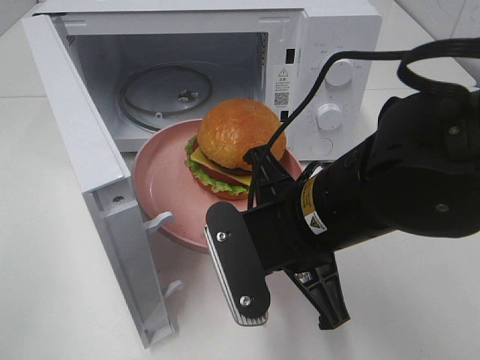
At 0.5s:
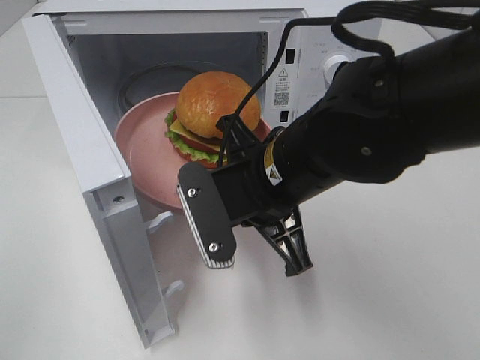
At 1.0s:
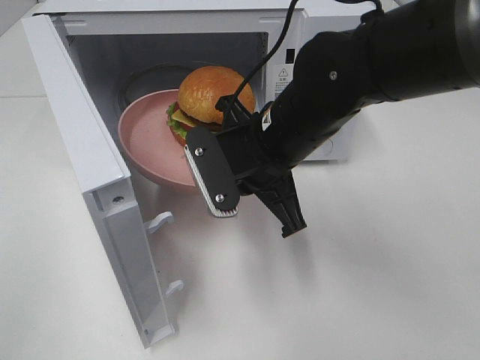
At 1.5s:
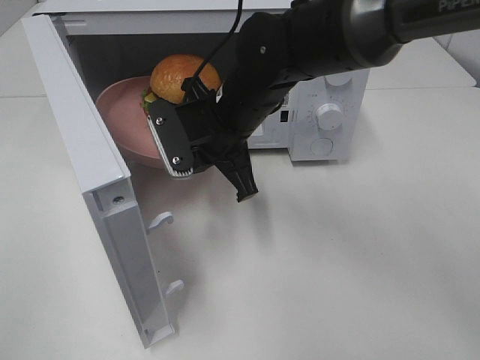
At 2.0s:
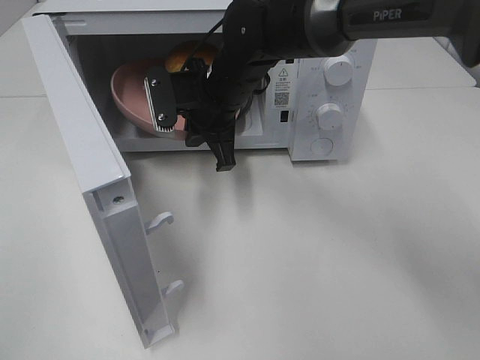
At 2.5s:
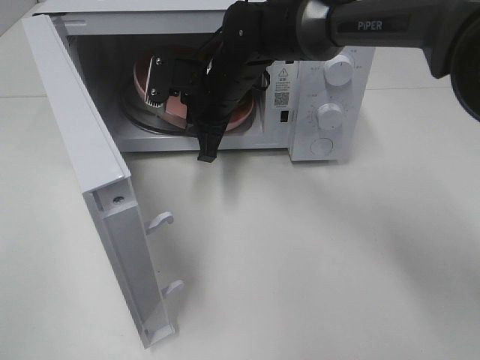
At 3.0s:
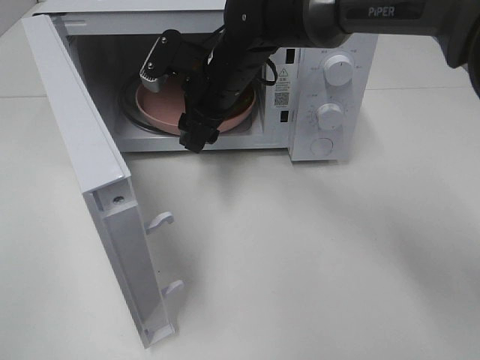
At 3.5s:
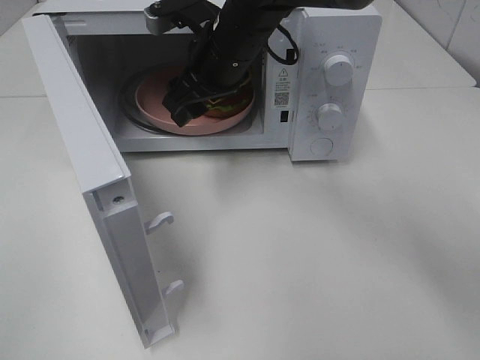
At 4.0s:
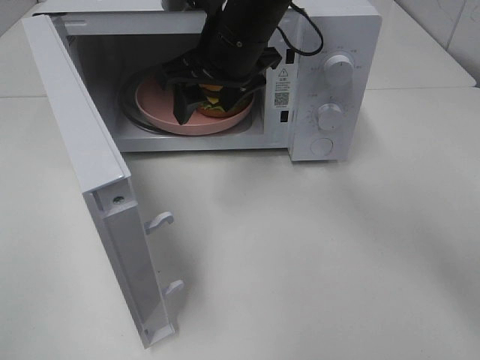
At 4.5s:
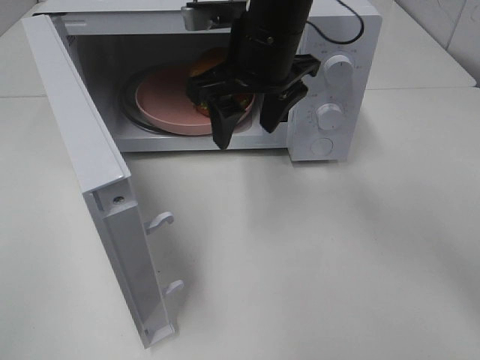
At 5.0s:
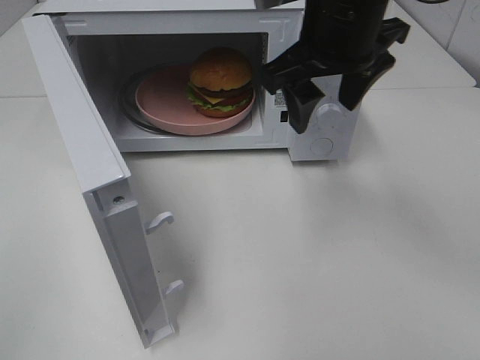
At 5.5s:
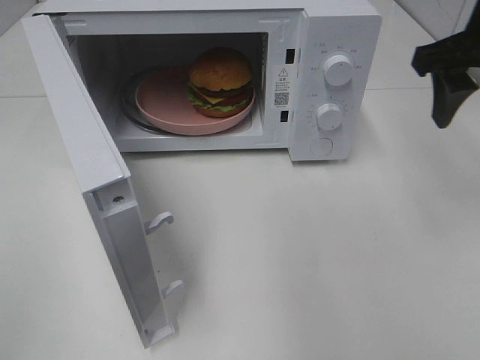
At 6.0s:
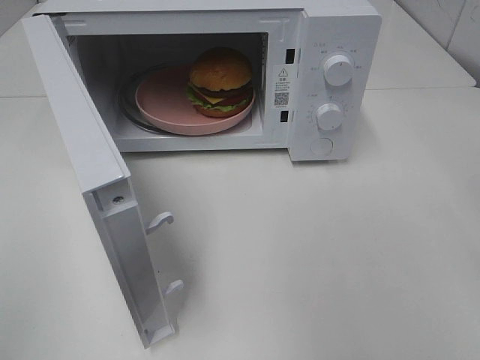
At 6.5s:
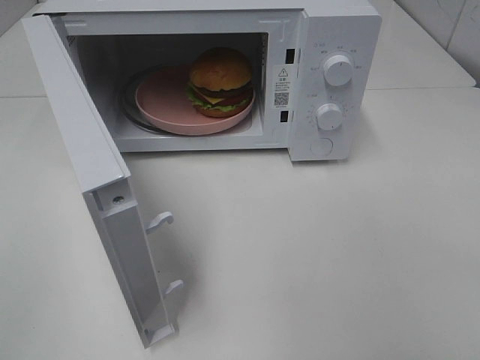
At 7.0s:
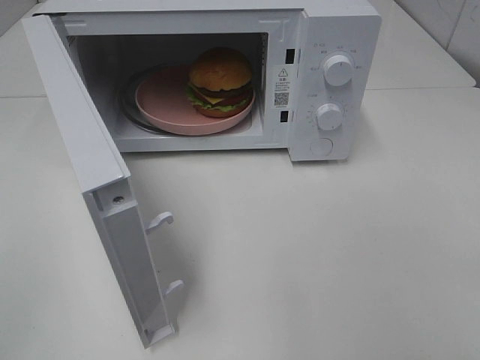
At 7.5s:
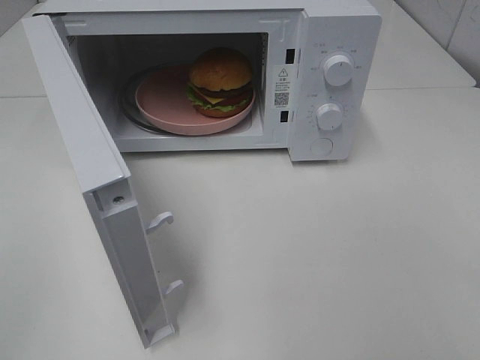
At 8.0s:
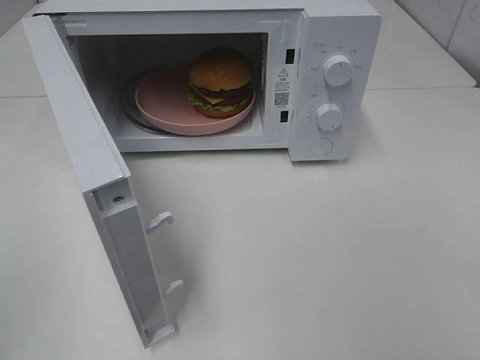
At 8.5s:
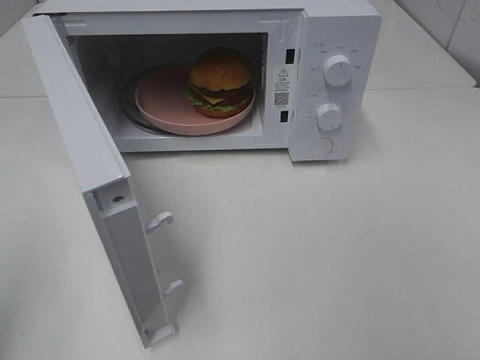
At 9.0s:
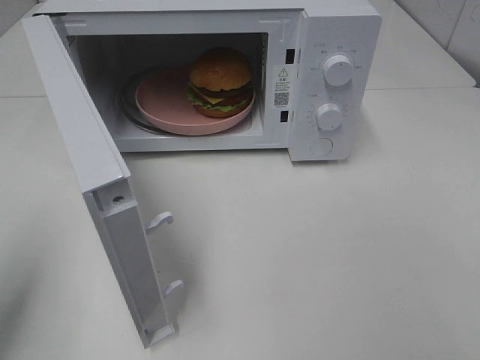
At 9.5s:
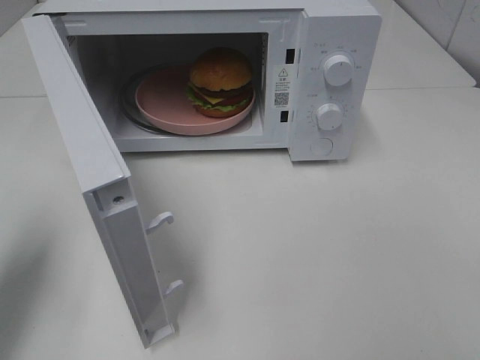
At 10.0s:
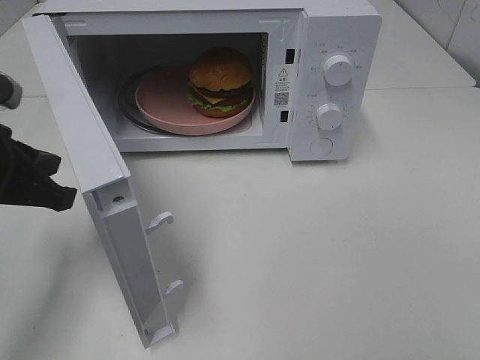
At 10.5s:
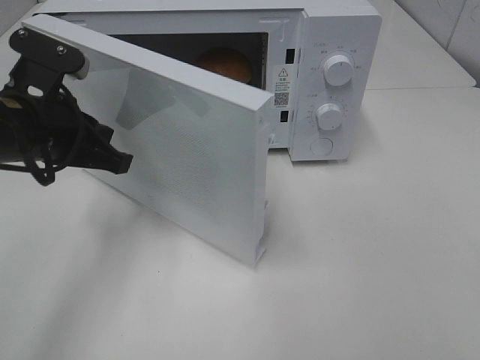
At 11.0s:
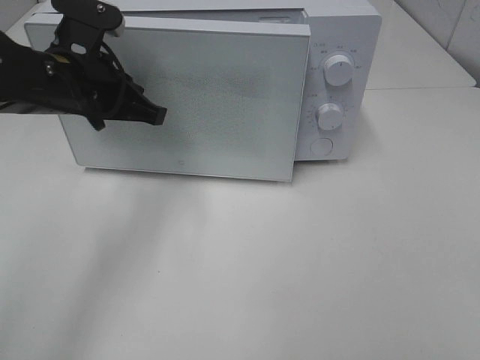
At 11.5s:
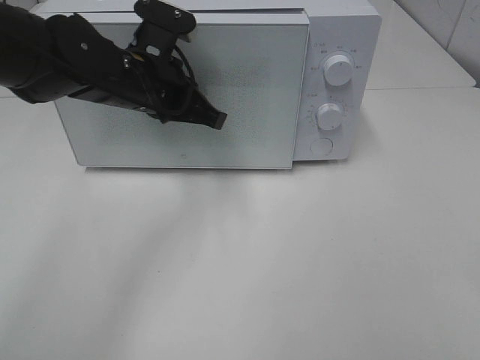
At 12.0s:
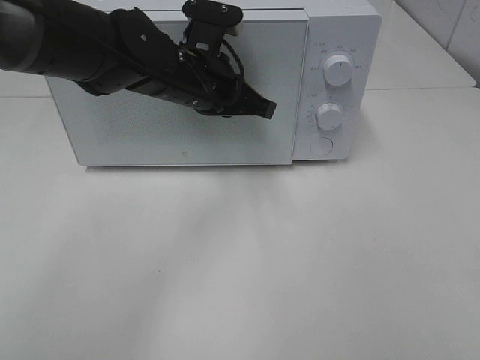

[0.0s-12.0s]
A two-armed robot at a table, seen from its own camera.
Task of the whole recording: Heat the burger.
Step, 0.0s to 2.5s: Right hand: place the plate in the microwave.
0.0s to 2.0s: The right gripper heads forward, covering roughly 20 cm.
2.0s to 4.0s: The right gripper goes some 10 cm upward, and opens.
4.0s to 6.0s: The right gripper shifts approximately 30 cm to the right and backward.
8.0s to 10.0s: The left gripper travels forward and downward by approximately 25 cm.
10.0s to 12.0s: The left gripper shifts approximately 25 cm to the right and forward.

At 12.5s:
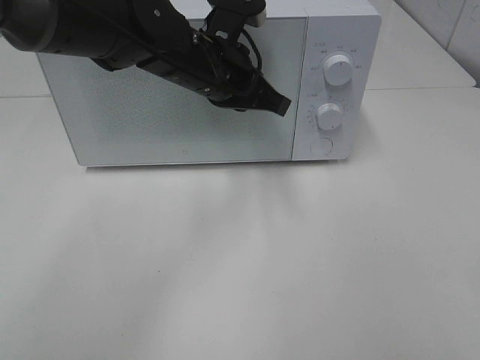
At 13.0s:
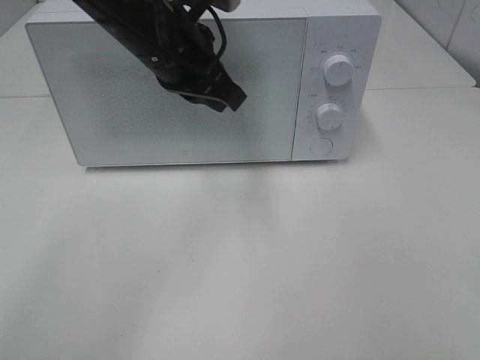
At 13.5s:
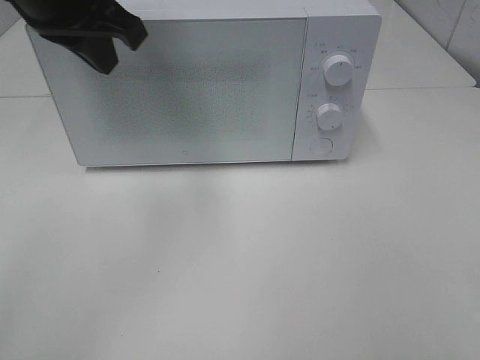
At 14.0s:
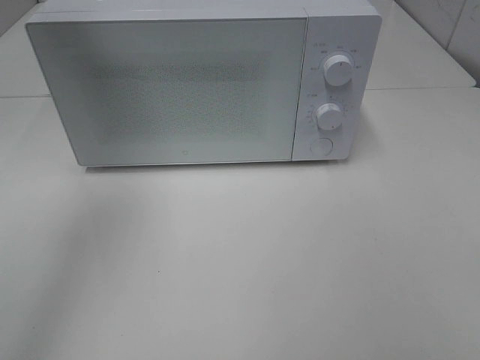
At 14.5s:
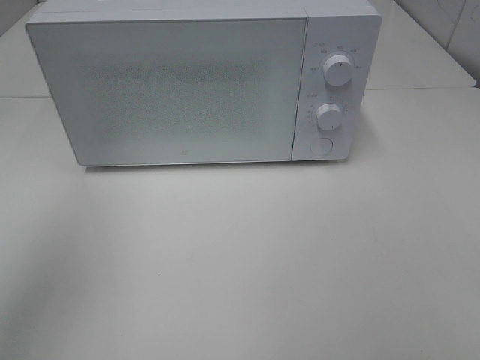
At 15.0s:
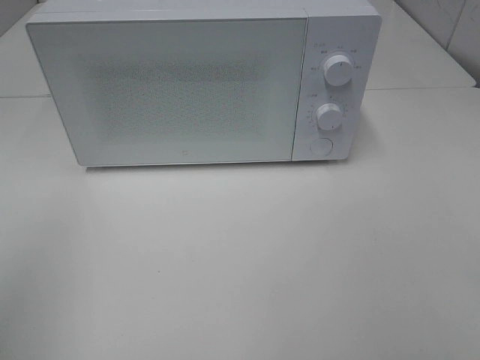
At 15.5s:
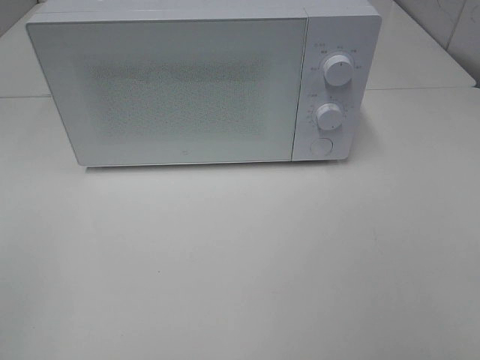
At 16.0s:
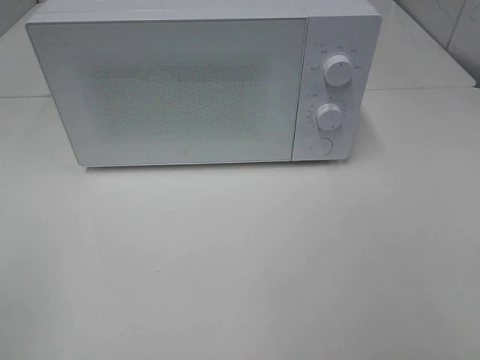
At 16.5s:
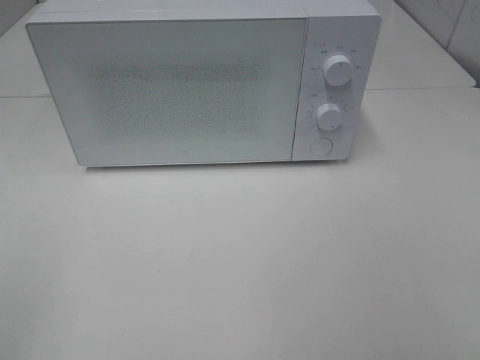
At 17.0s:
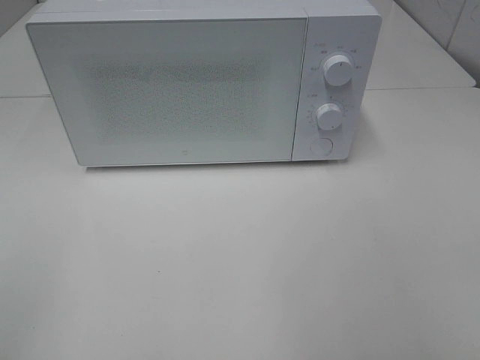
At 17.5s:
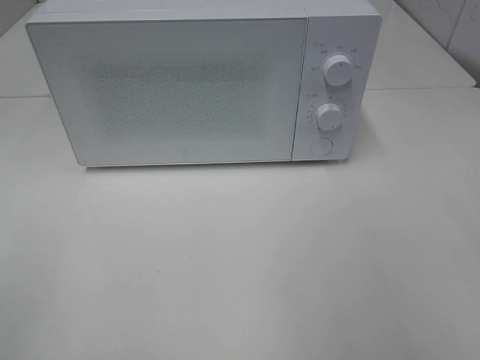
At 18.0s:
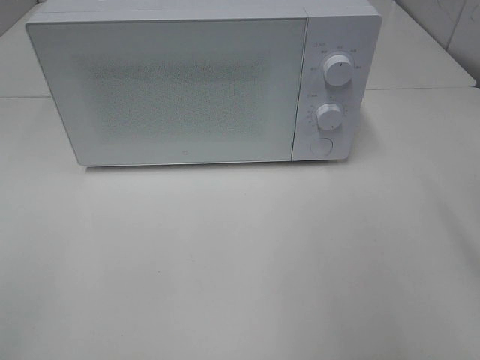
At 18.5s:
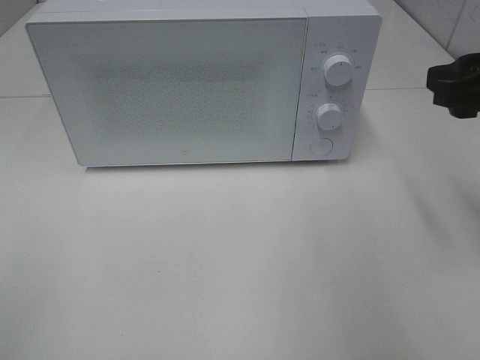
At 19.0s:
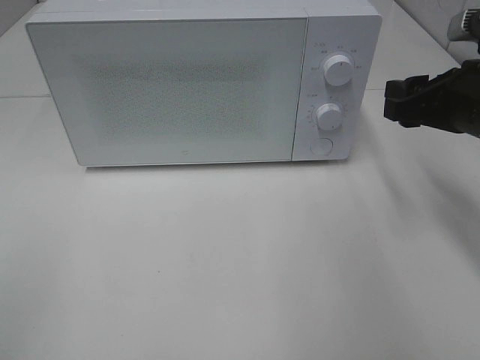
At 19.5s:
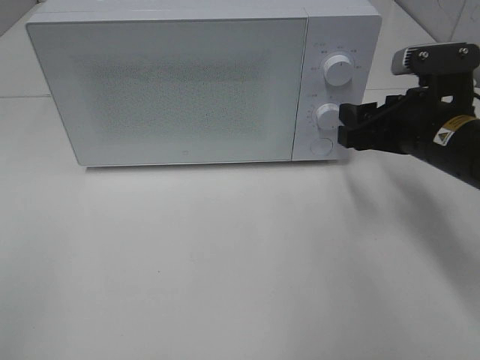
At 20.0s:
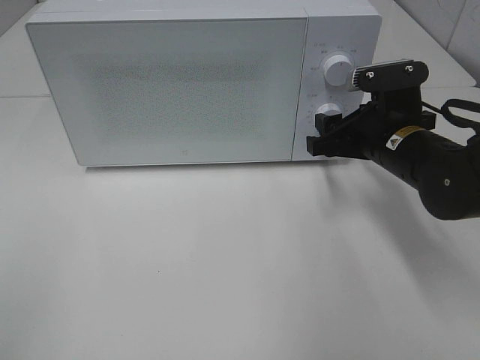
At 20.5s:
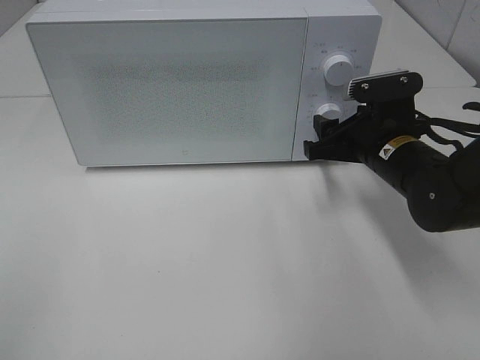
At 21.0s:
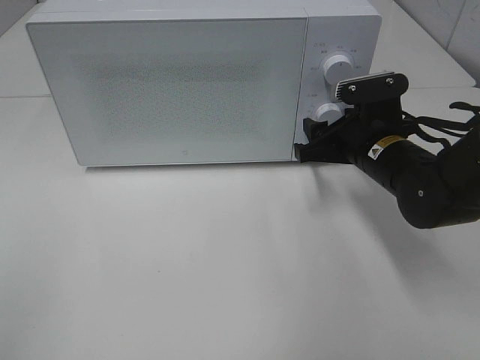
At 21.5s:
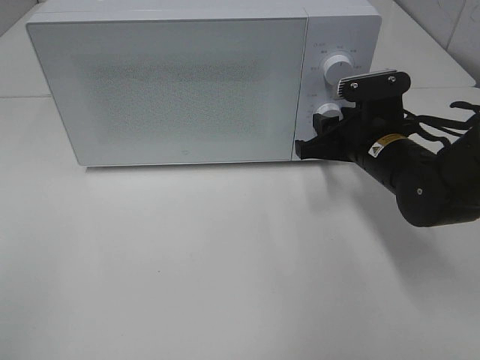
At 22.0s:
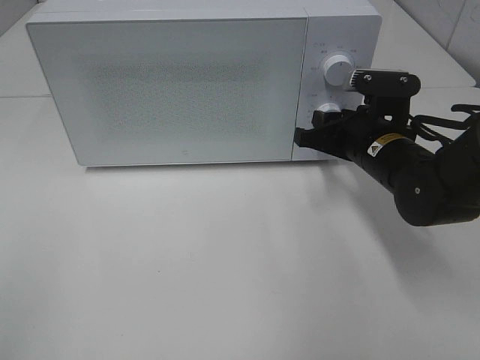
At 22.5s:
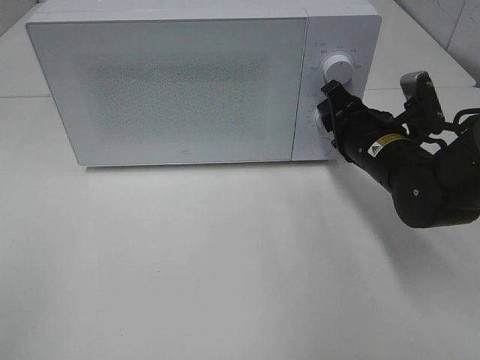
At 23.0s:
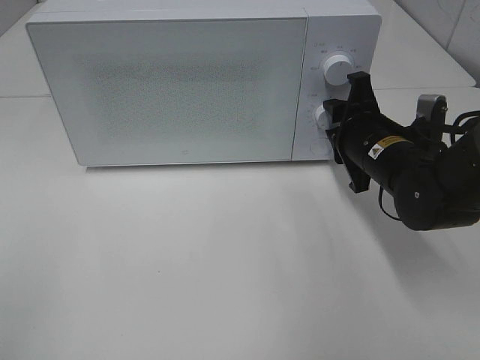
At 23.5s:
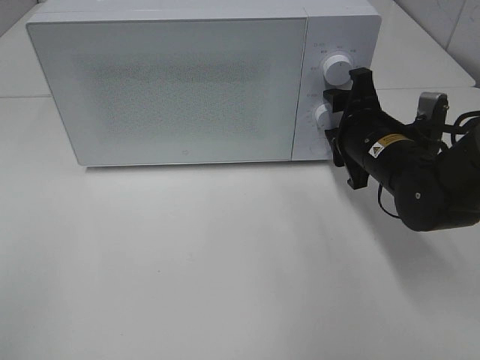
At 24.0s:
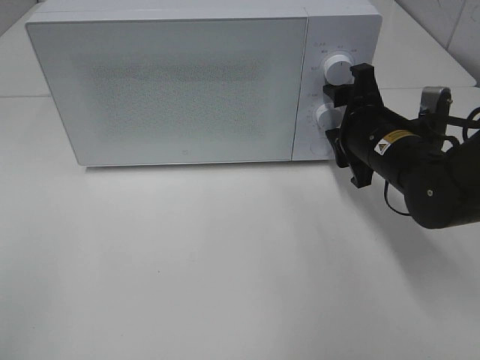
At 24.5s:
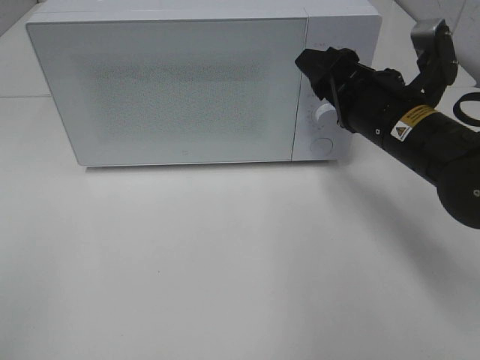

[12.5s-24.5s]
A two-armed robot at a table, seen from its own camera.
Task of the whole recording: Heat the burger.
Step, 12.5s to 23.0s: Right hand: twist timer button.
12.5s to 14.5s: The left gripper shifts about 35 cm to the left, backward and upward.
14.5s to 16.5s: The left gripper heads backward and downward, covering some 20 cm.
16.5s to 18.5s: The right gripper travels forward by approximately 20 cm.
18.5s to 20.5s: The right gripper travels downward, forward and to the left by approximately 20 cm.
22.5s to 24.5s: The right gripper moves upward, some 5 cm.

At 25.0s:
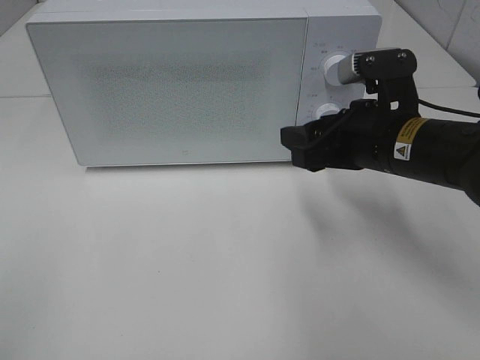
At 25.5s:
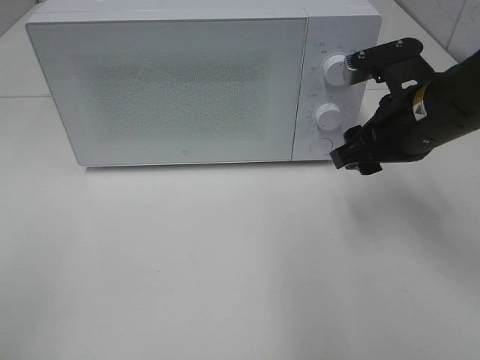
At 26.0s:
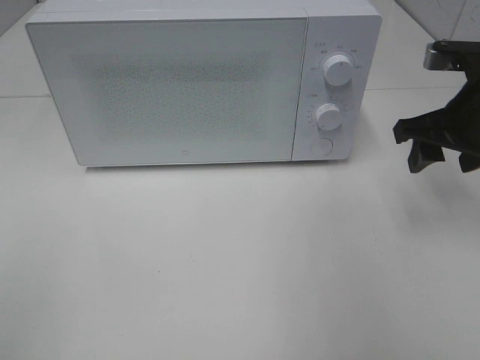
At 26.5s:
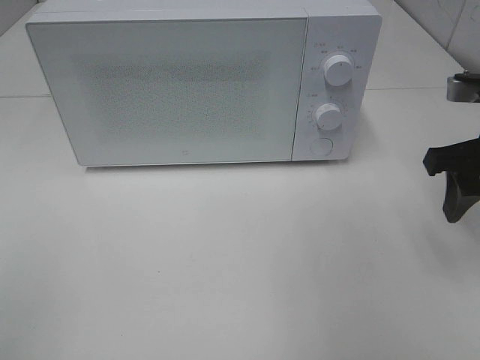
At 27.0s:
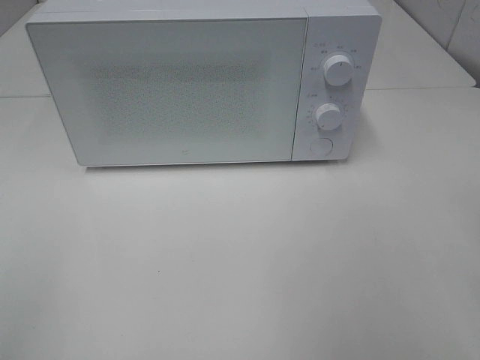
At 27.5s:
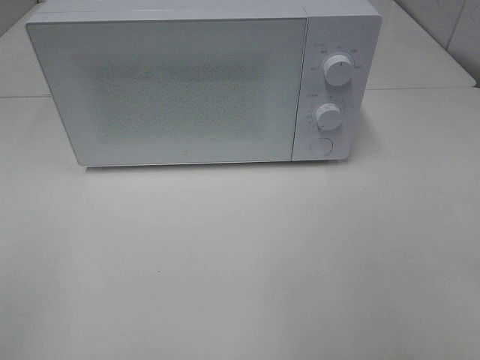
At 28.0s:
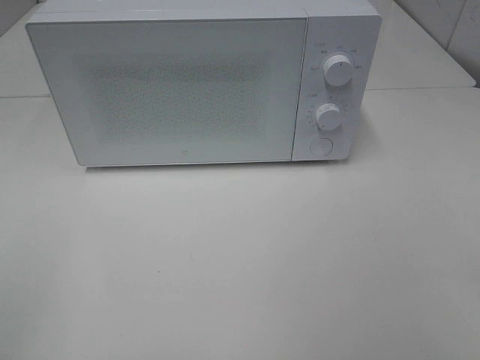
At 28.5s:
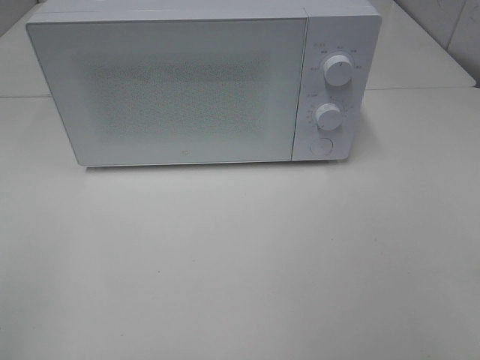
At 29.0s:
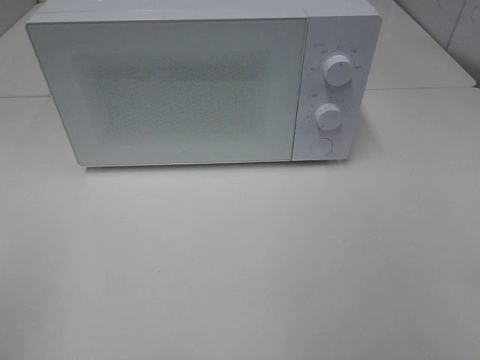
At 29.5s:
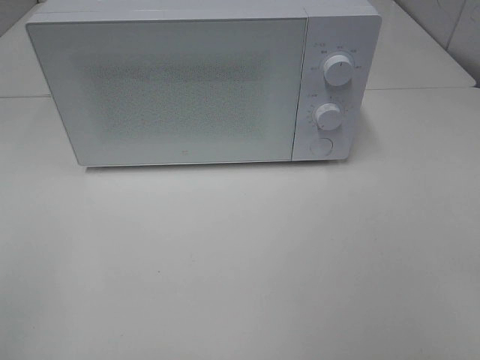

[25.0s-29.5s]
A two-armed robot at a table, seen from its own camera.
Task of the whole recording: Heat the burger.
25.0s to 27.0s: The right gripper shifts roughly 20 cm backward, to the right and upward.
